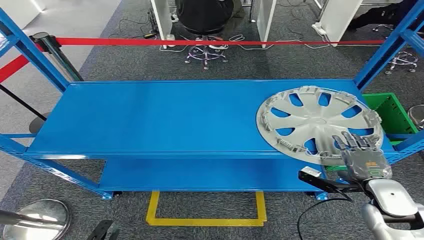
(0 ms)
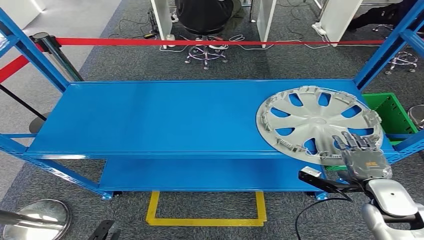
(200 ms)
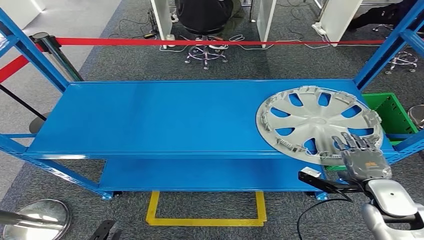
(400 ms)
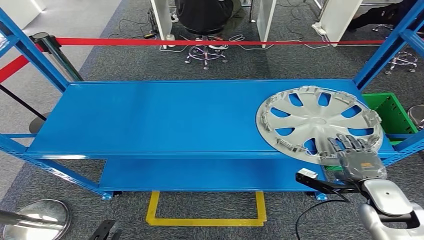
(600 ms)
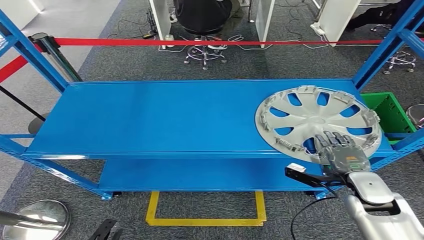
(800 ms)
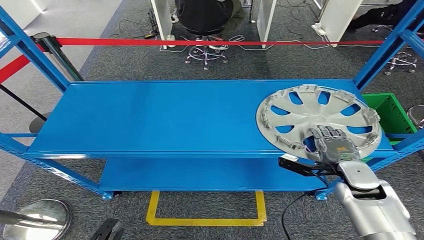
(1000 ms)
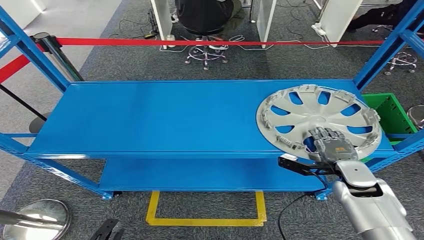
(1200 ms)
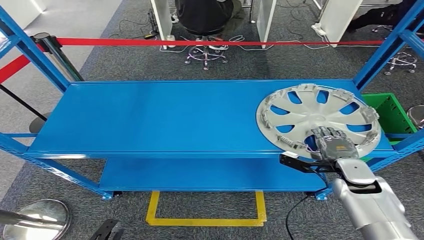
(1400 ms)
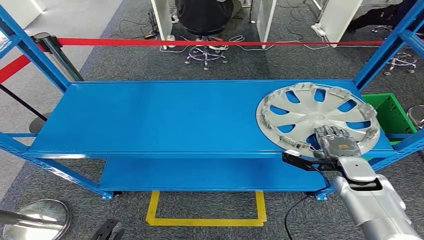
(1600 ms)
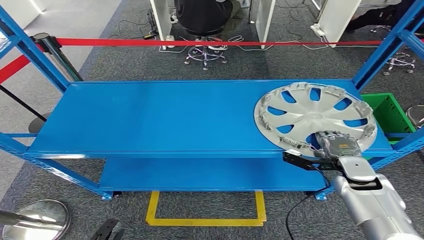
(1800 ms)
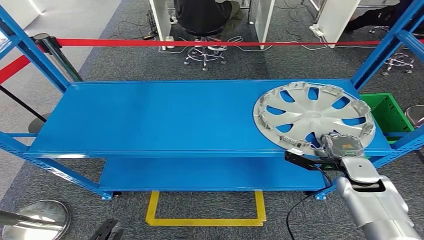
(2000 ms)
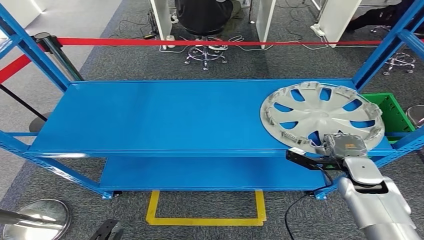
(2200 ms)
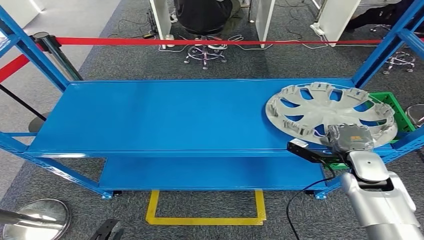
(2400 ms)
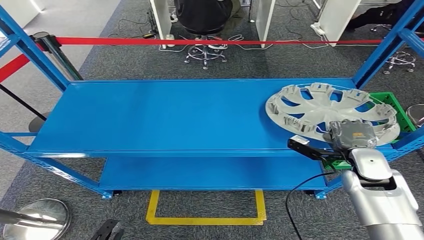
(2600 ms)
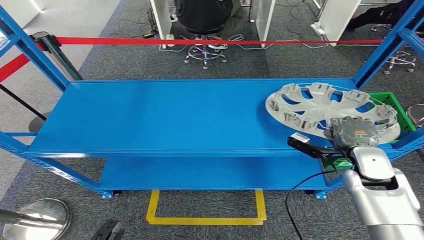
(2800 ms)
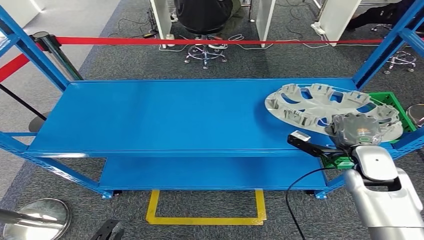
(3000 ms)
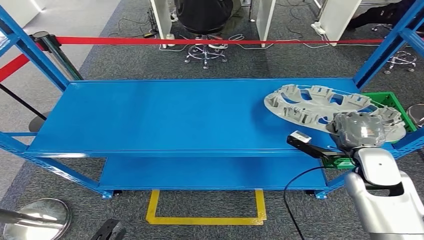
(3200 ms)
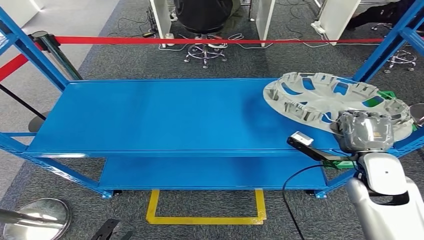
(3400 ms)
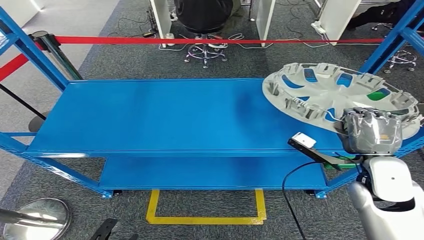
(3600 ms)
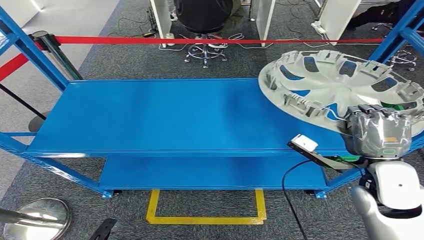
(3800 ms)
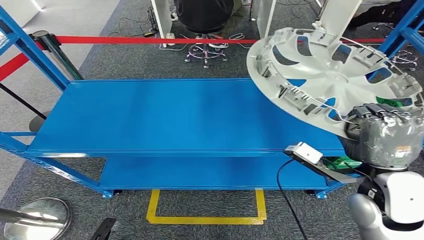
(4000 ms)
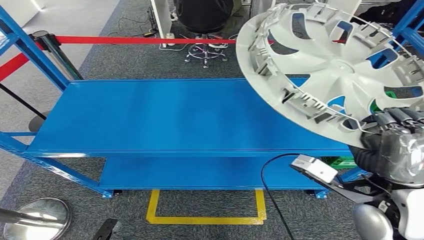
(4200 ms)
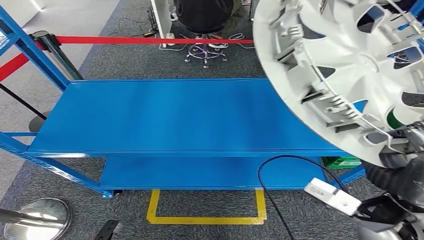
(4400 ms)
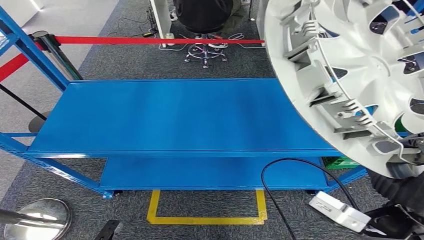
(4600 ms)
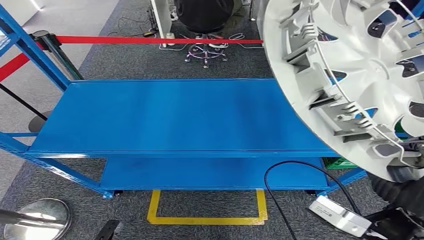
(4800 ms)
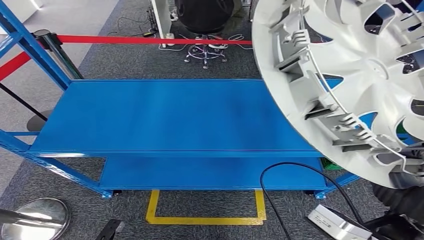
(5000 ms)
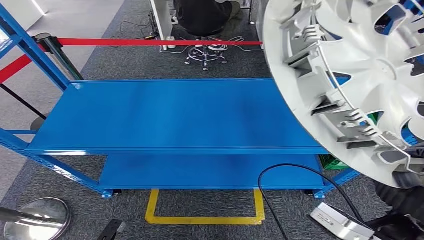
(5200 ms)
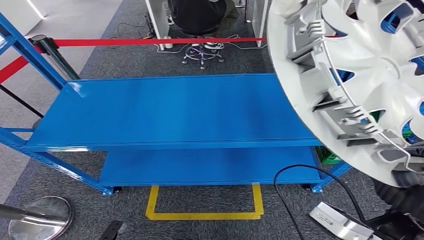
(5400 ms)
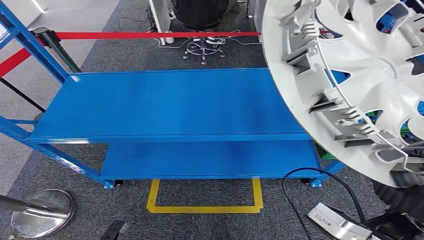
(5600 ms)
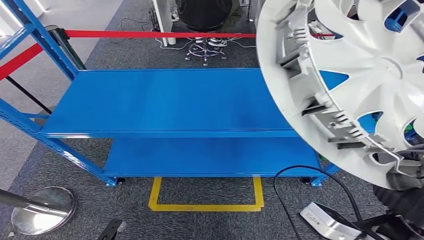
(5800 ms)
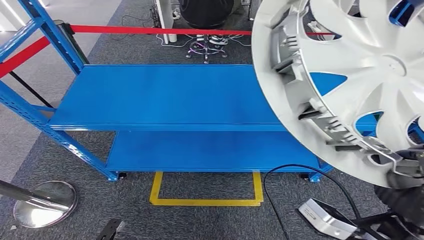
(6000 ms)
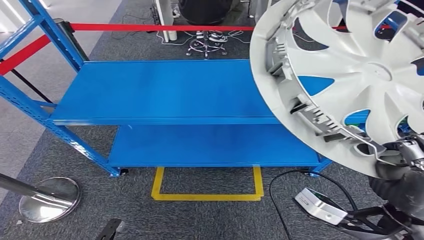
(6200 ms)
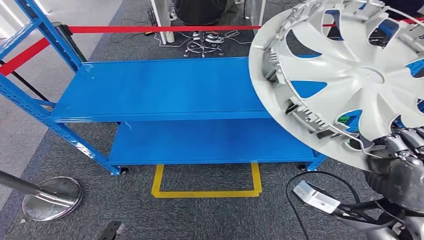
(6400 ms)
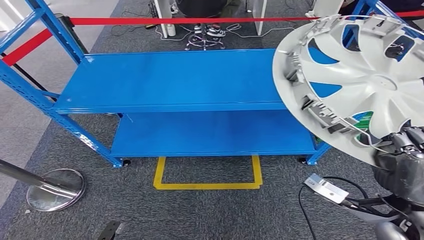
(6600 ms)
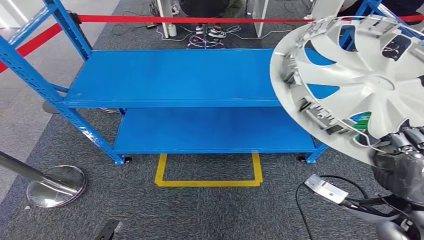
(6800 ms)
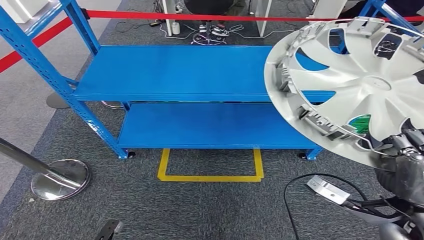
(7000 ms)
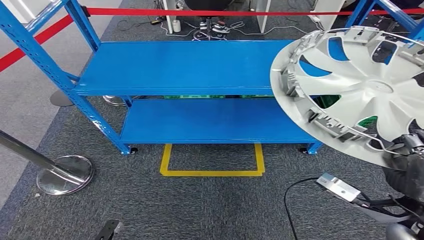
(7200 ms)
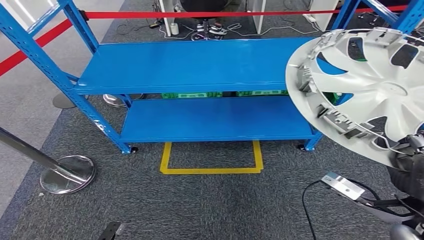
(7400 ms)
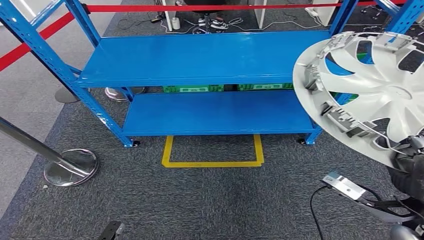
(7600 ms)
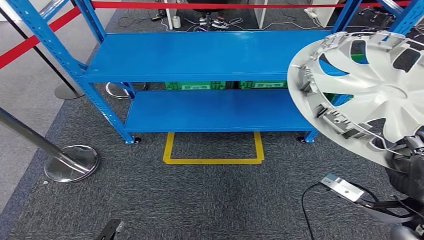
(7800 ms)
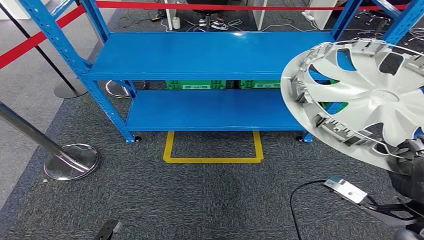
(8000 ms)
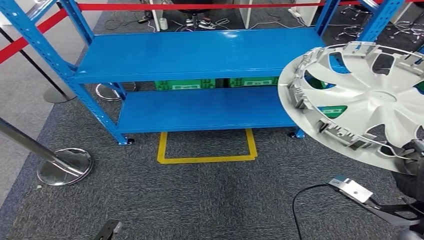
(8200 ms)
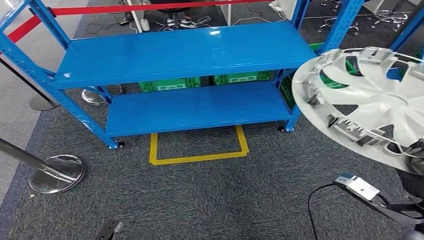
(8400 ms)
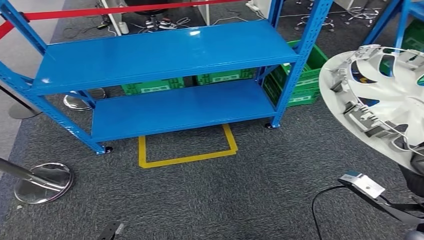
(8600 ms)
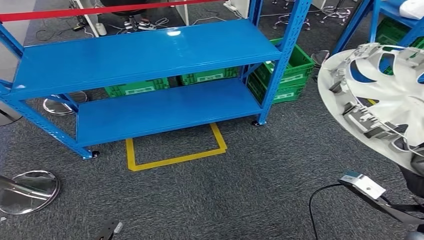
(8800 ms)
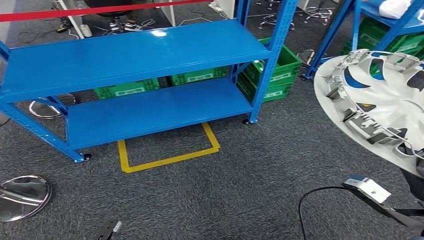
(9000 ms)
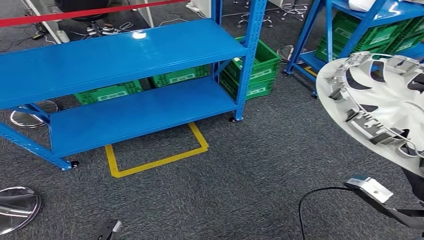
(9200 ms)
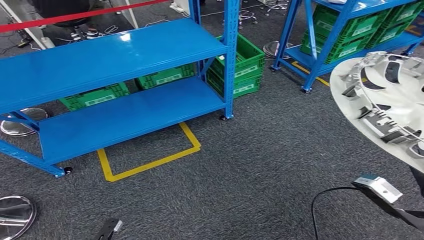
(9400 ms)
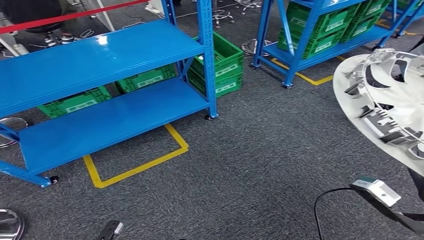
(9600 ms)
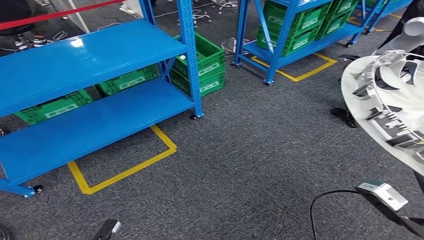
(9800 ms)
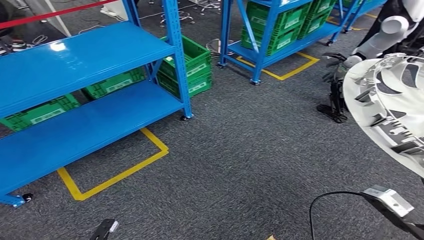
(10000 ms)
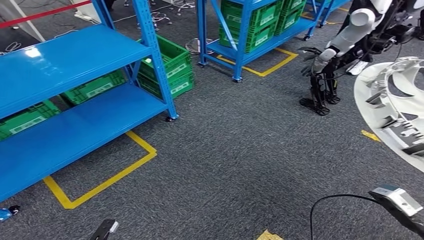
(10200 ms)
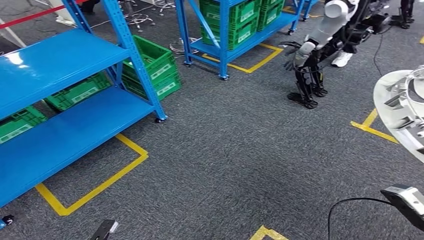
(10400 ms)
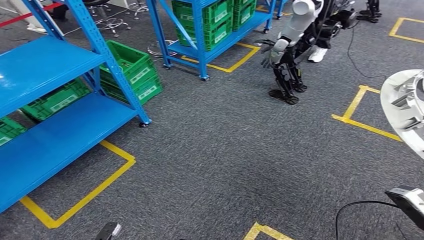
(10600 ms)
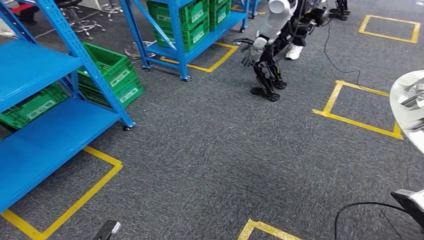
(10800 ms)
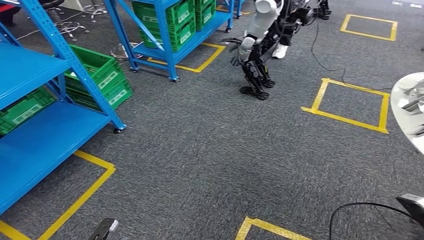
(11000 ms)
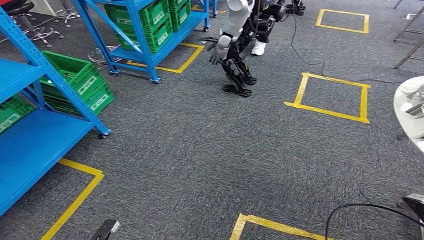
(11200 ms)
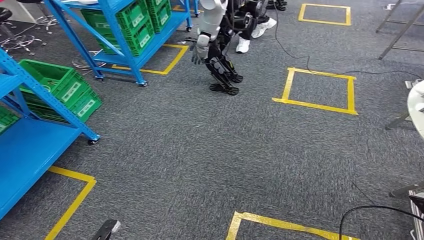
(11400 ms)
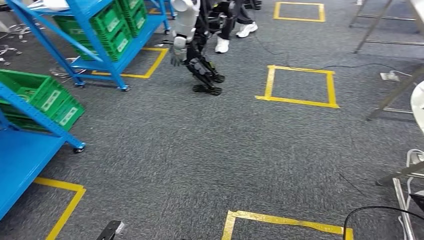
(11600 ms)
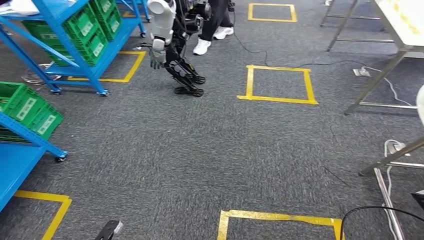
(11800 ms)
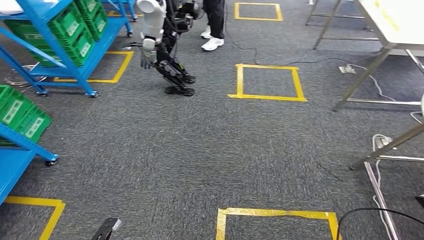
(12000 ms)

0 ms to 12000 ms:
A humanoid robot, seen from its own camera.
Step, 0 ms to 5600 ms: Pick up the small component from the shelf.
1600 ms to 3000 ms: The right hand goes roughly 10 cm upward.

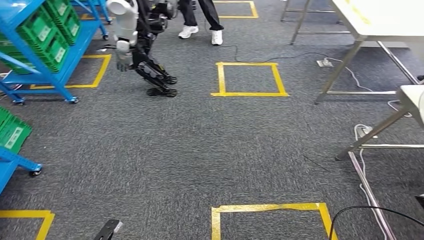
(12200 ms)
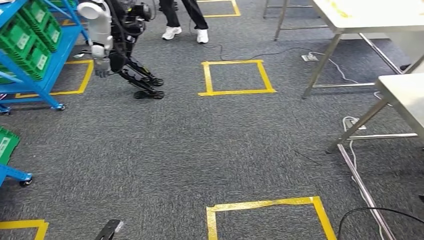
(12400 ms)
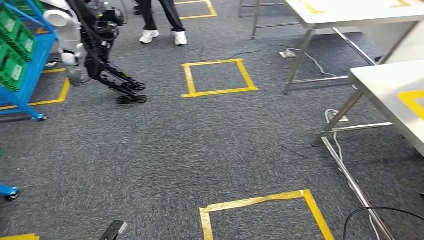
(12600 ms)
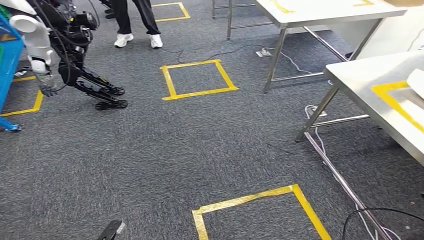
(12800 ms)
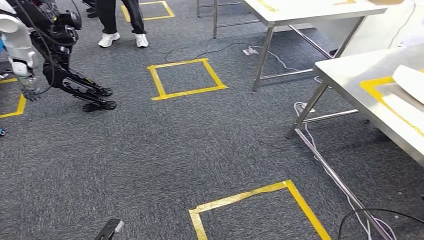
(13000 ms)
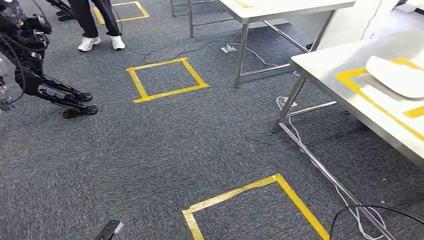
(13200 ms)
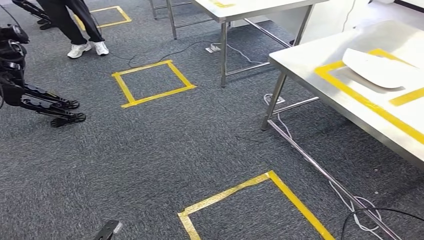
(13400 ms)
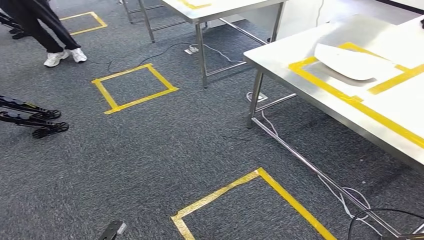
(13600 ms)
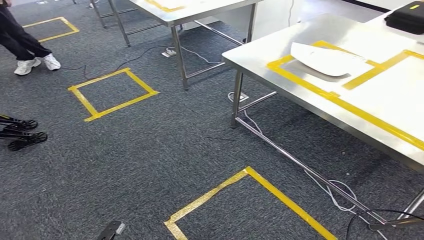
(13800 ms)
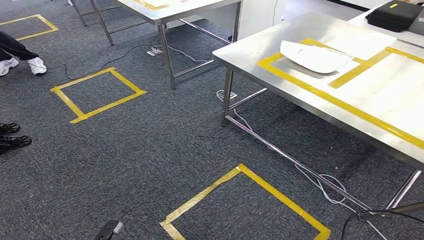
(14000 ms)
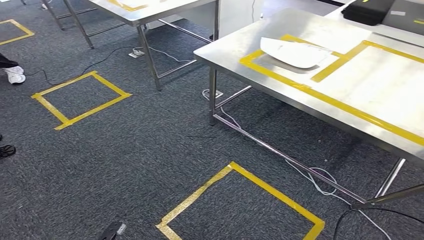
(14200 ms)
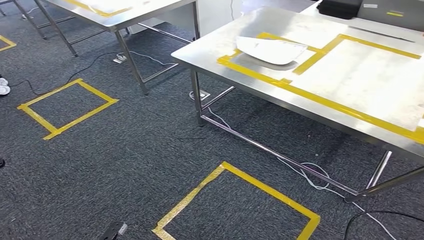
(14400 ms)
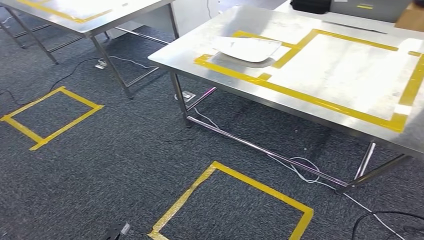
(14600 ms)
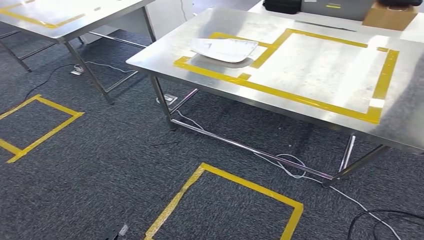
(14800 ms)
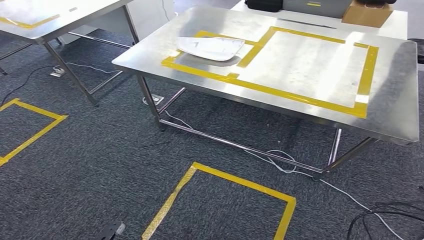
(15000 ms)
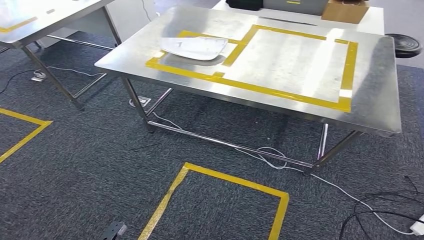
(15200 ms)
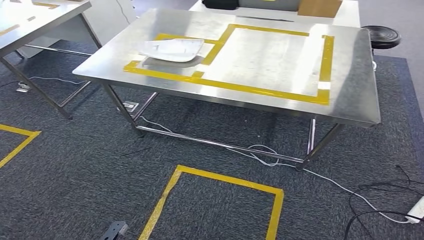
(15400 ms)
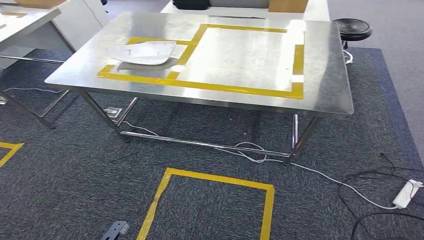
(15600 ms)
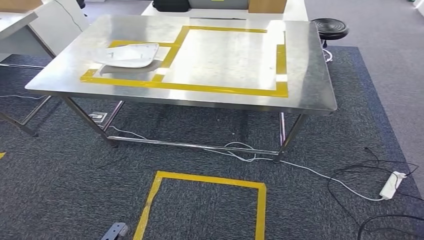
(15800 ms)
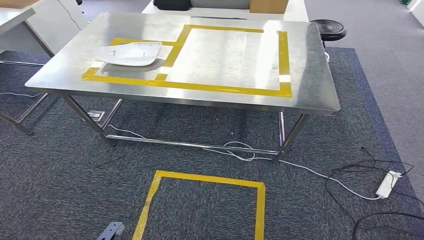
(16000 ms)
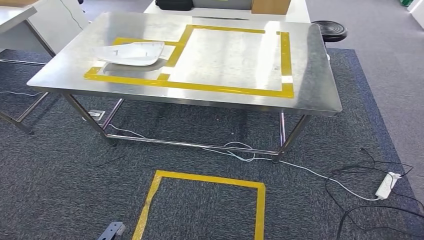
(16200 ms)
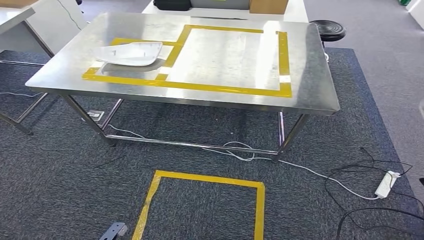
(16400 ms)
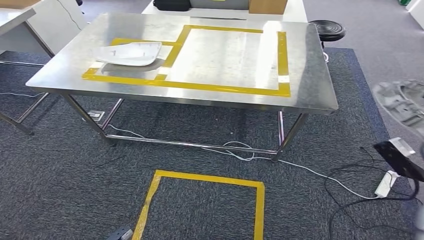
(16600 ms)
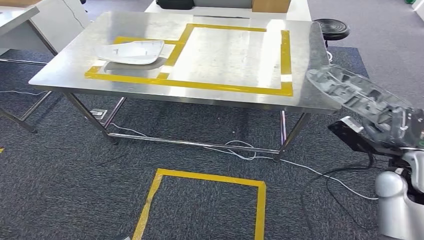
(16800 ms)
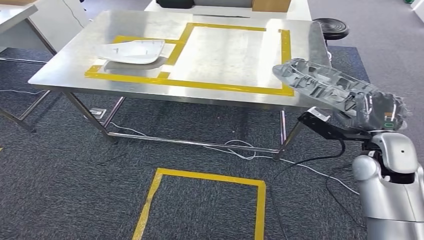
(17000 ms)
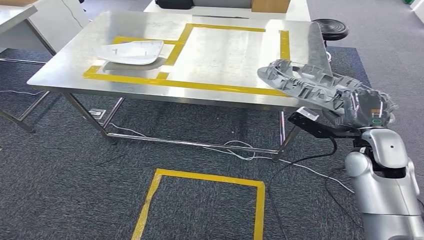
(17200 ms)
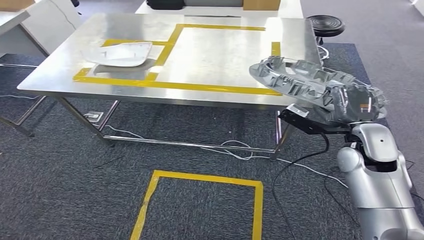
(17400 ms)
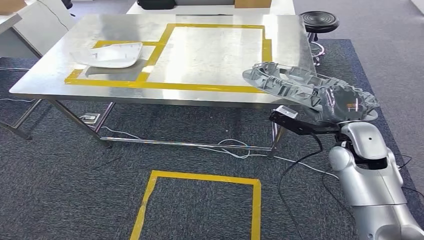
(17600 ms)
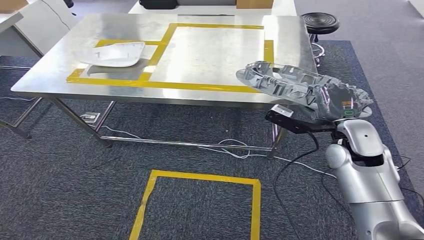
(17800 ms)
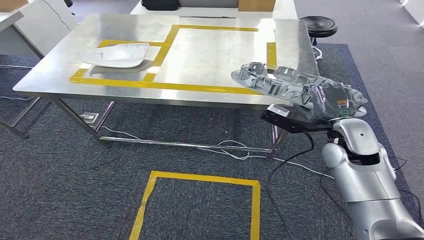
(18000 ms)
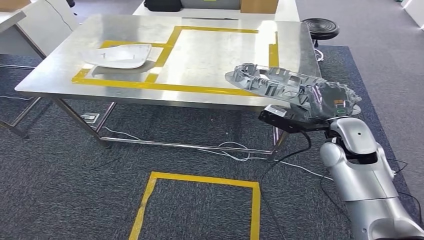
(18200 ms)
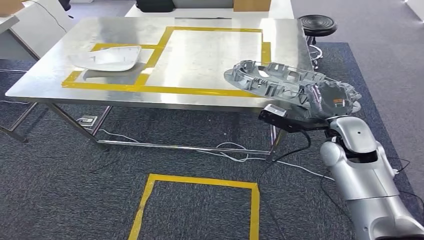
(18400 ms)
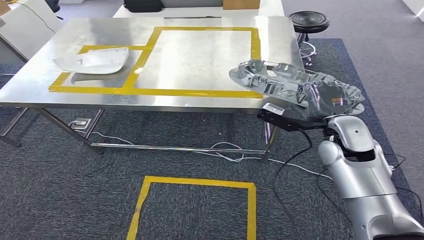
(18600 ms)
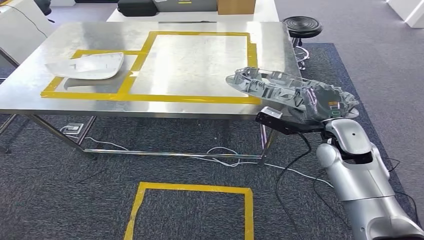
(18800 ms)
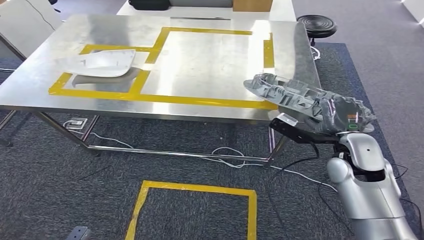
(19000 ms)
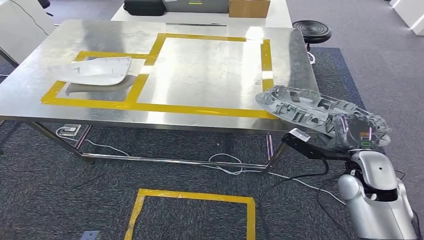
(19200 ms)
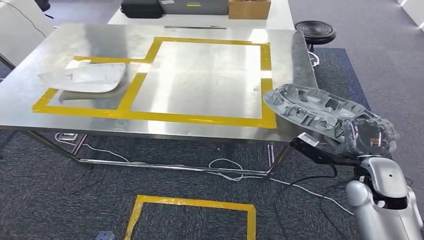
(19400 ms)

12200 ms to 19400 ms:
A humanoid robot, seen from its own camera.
Step, 12200 ms to 16400 ms: Move the small component to the workbench.
